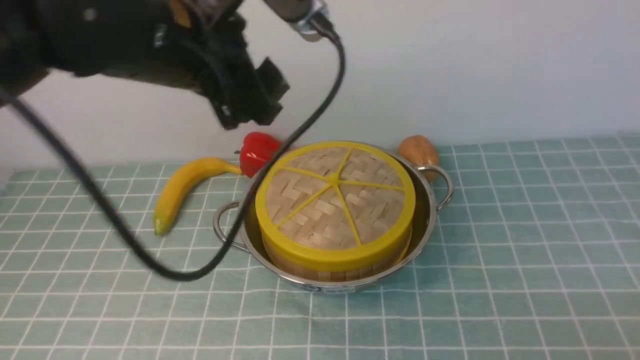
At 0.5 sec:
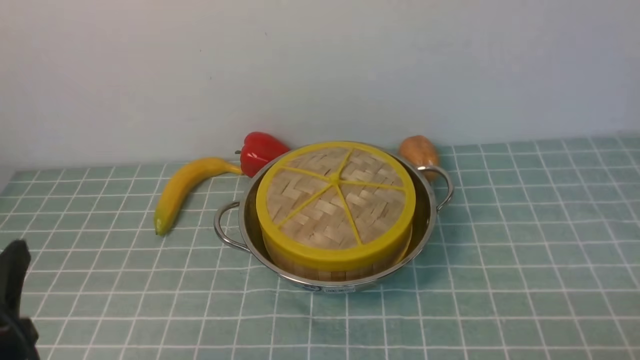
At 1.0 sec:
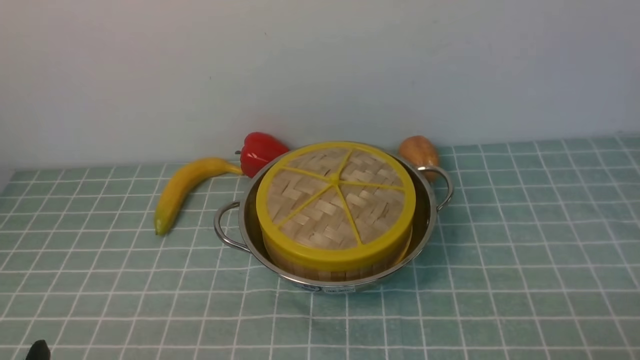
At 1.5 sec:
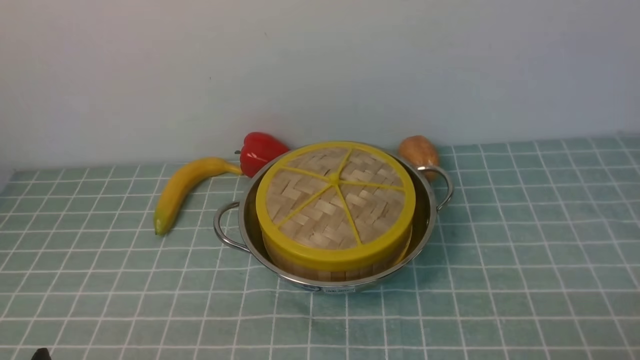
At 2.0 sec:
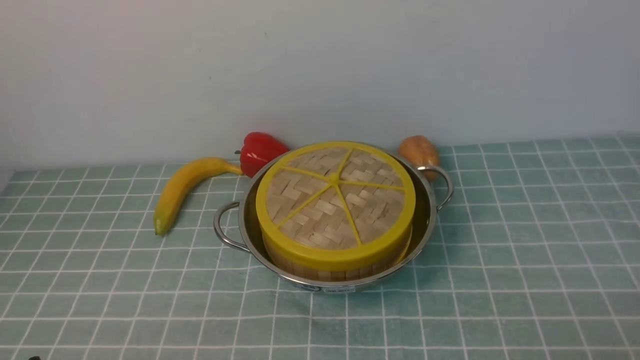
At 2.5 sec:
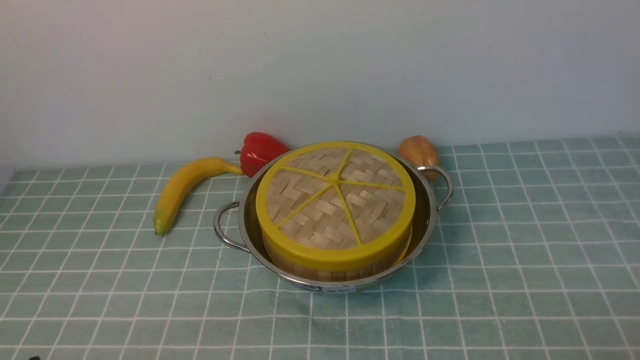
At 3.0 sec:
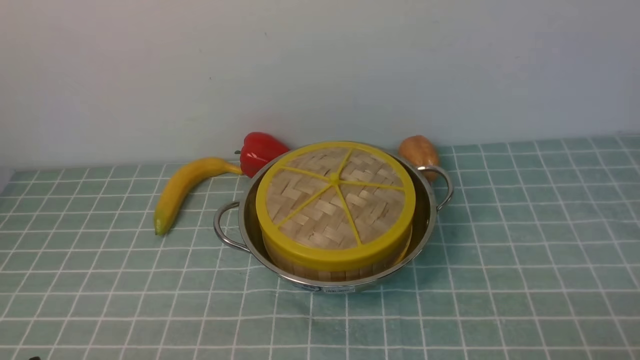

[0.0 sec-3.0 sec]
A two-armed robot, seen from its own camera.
Task of the whole recording: place the steamer in the pot on the blue tablecloth, and put the lid on the steamer.
0.0 sec to 1.5 sec: The left gripper moves backward, downward and to the left, approximately 35 cm.
1.5 sec to 3.0 sec: Neither gripper changes place.

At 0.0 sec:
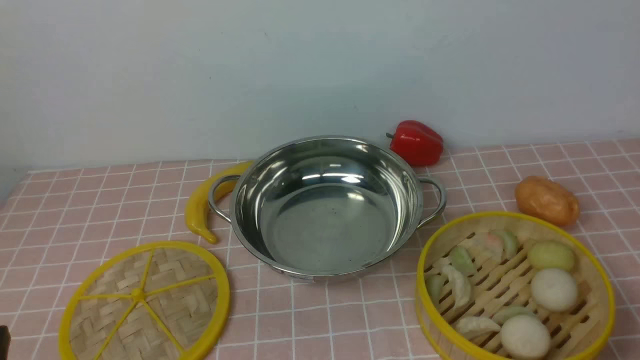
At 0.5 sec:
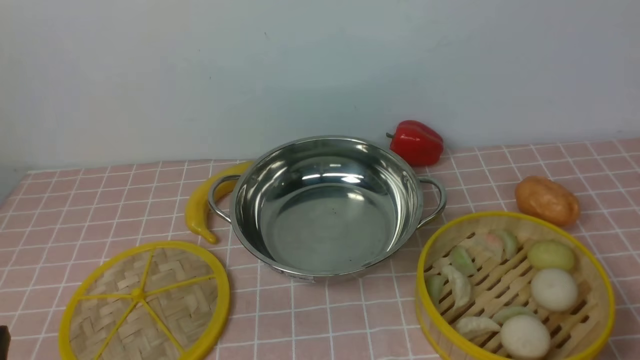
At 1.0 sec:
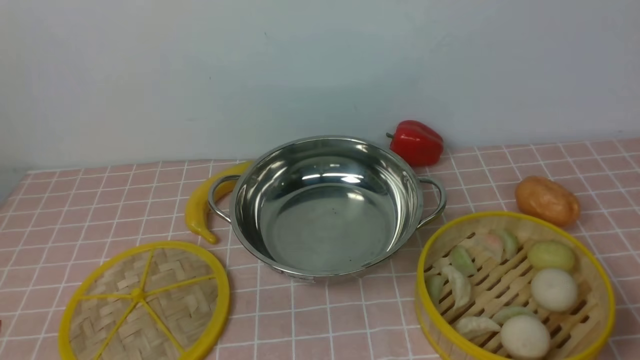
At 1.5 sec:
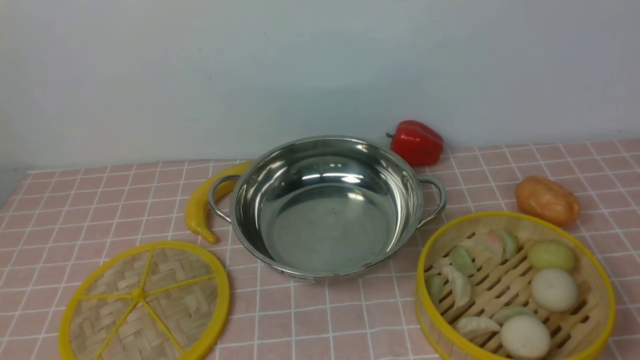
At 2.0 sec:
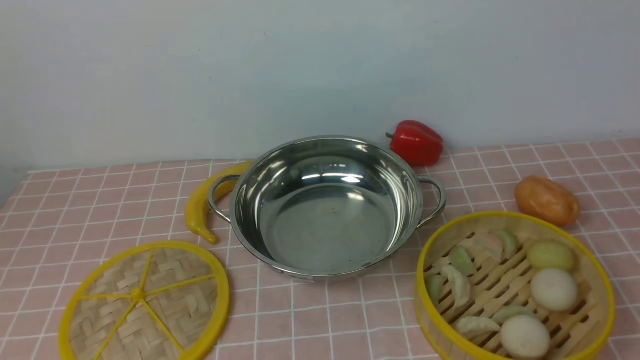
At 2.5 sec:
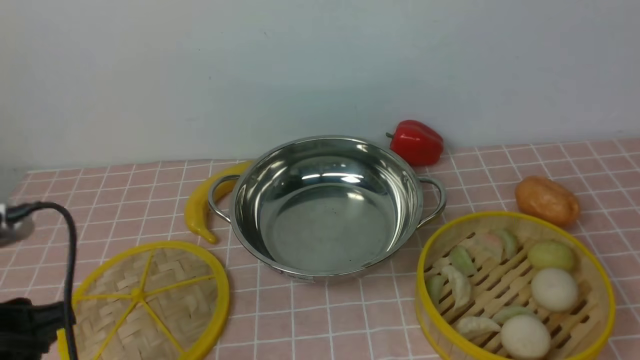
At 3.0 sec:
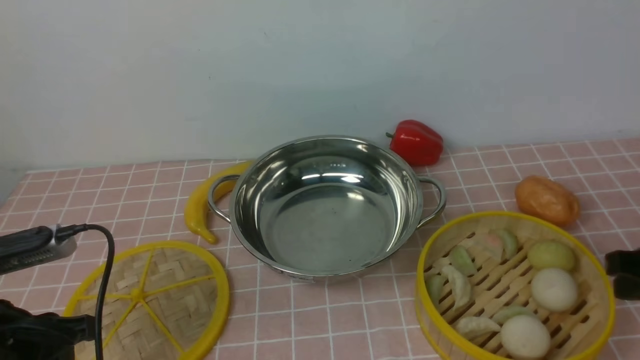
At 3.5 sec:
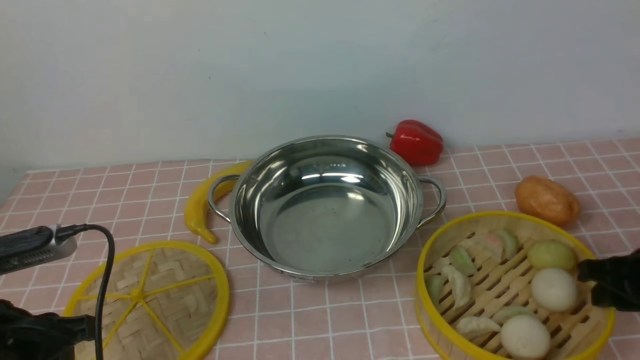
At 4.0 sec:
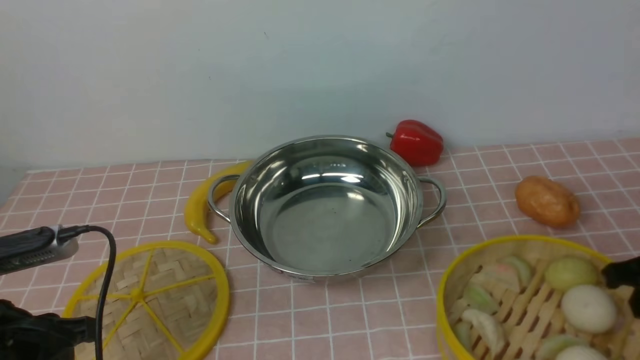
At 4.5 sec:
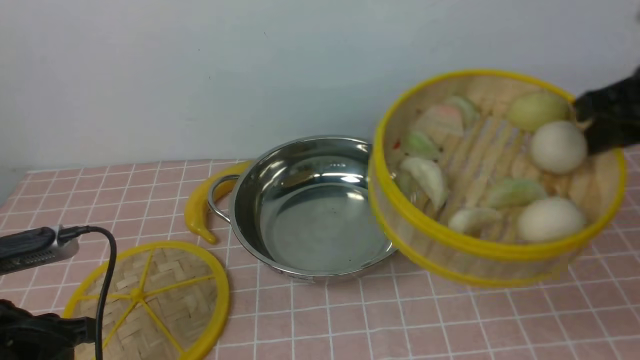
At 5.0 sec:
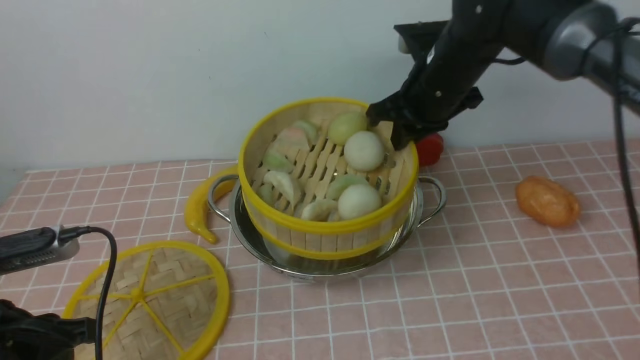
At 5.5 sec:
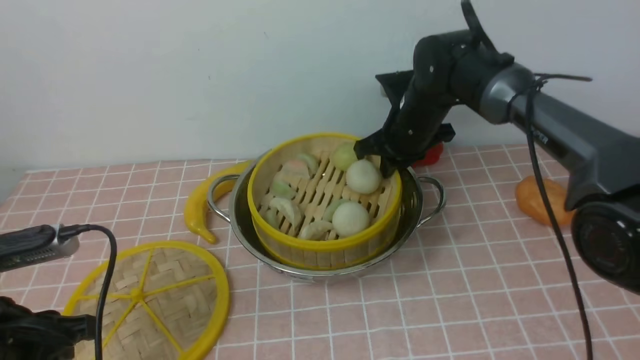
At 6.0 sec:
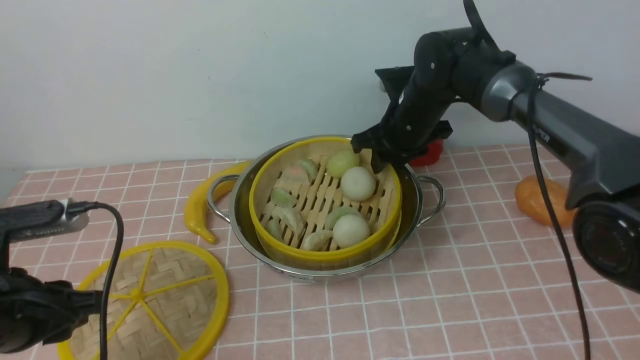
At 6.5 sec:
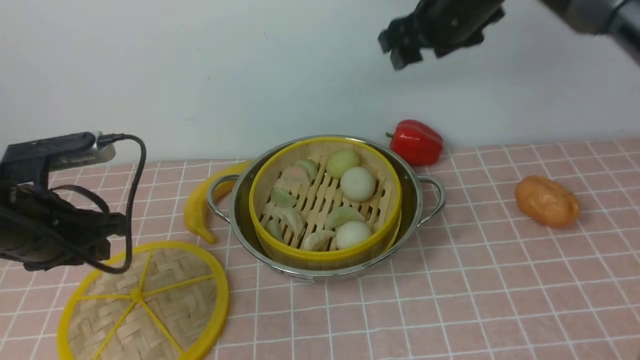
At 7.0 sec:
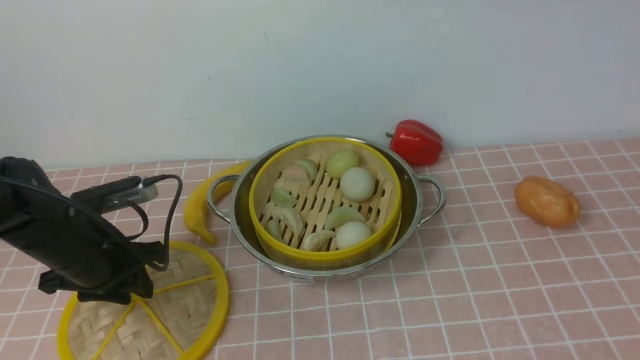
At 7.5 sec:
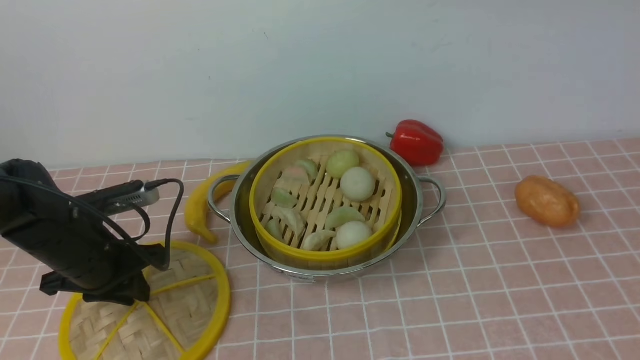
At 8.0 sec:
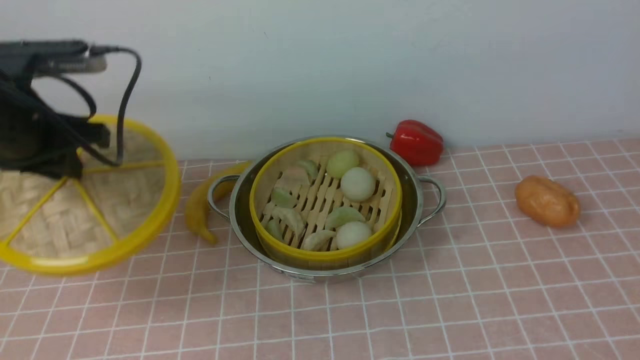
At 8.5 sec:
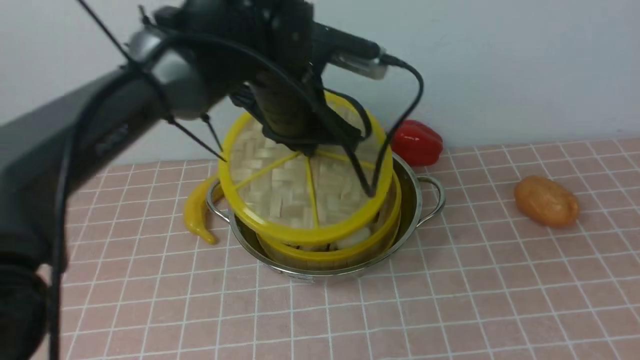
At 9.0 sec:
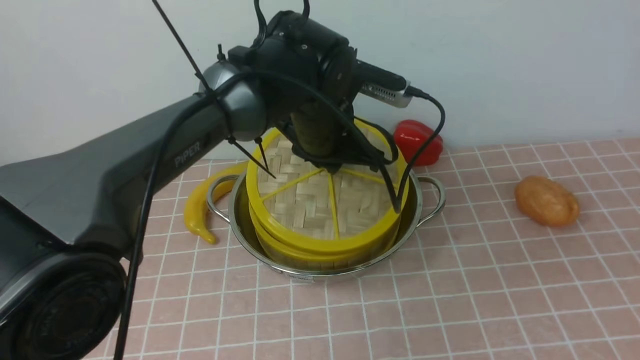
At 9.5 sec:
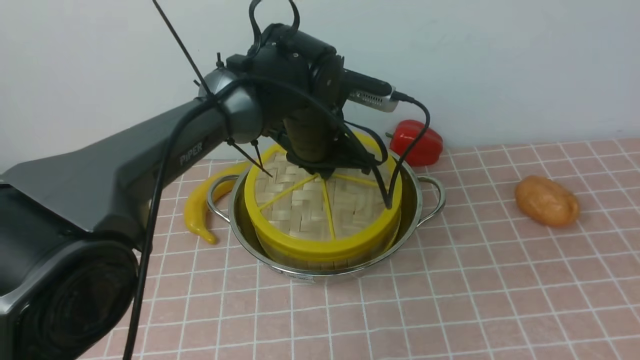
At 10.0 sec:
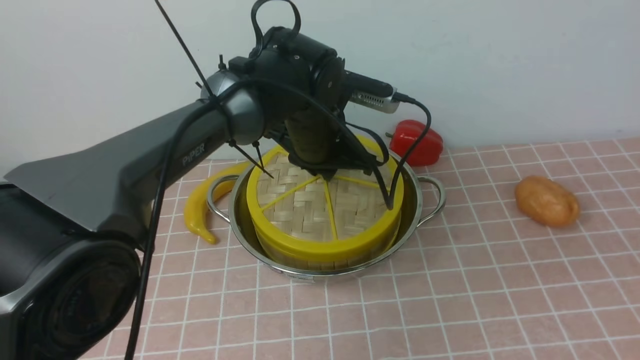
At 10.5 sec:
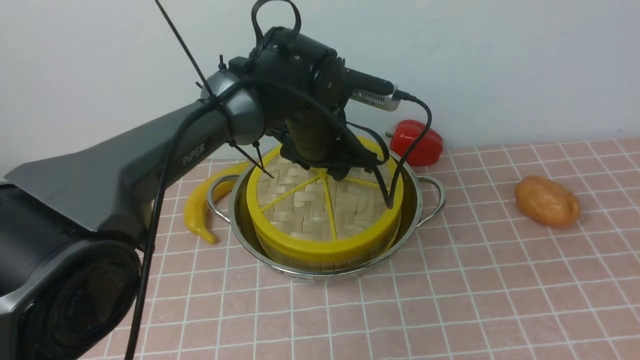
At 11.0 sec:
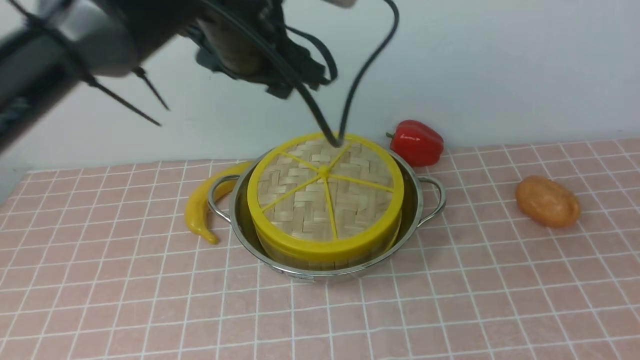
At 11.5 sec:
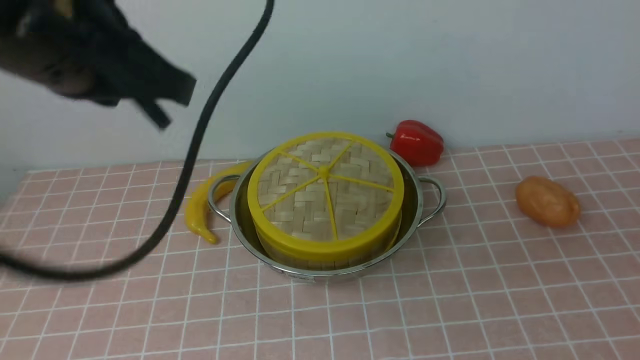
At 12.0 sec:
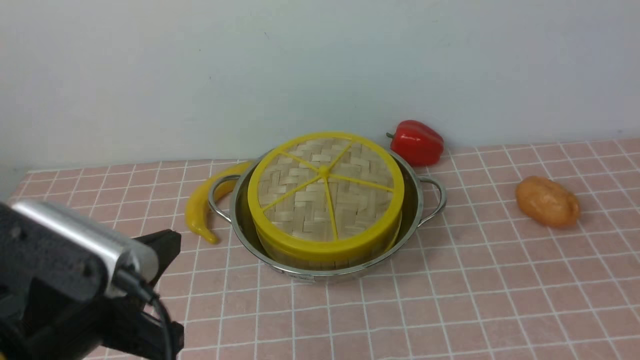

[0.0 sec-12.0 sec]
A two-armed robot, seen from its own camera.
Task of the whole recording: place the steamer in the pot on the pink tablecloth, and put the lid on the steamer.
Step, 0.0 sec to 3.5 sec: use the right arm to lift the steamer closest to it.
Step, 4.5 sec to 6.0 sec: use the right arm to put the steamer into the iron steamer pot in the middle.
Step, 6.5 sec to 7.5 sec: use the left arm to lift the lid of the steamer.
Step, 8.0 sec to 10.5 sec: use the left arm to place the steamer lid on the steamer.
2.0 sec to 4.0 sec: The right gripper travels forward and downward by some 25 cm; the left gripper goes about 20 cm forward and downward.
4.0 sec to 6.0 sec: The right gripper goes about 30 cm forward and to the left.
6.0 sec to 8.0 sec: The left gripper goes roughly 15 cm forward. Meanwhile the right gripper moves backward, upward and to the right, about 40 cm, and opens its fingers.
8.0 sec to 10.0 sec: The right gripper heads backward and downward, covering approximately 20 cm, while the left gripper goes approximately 25 cm to the right.
10.0 sec to 12.0 sec: The left gripper goes some 30 cm backward and to the left, and opens, then closes again; the right gripper goes some 5 cm downward, and closes.

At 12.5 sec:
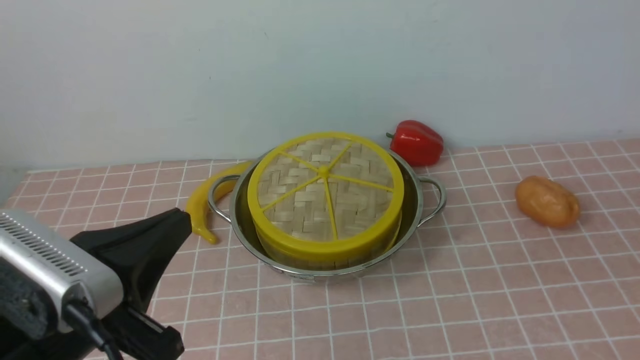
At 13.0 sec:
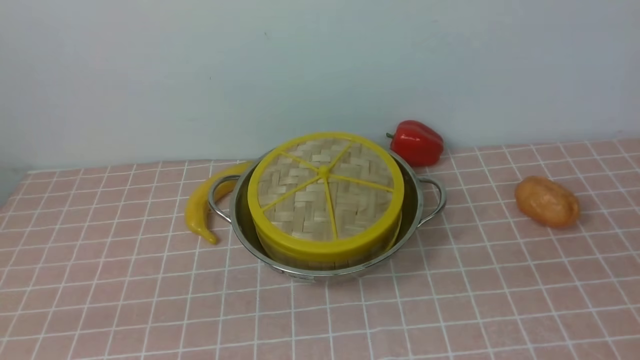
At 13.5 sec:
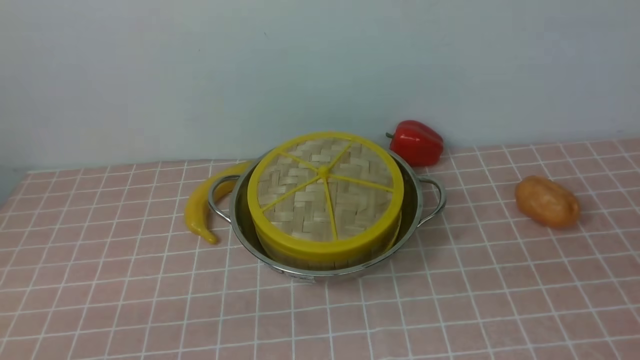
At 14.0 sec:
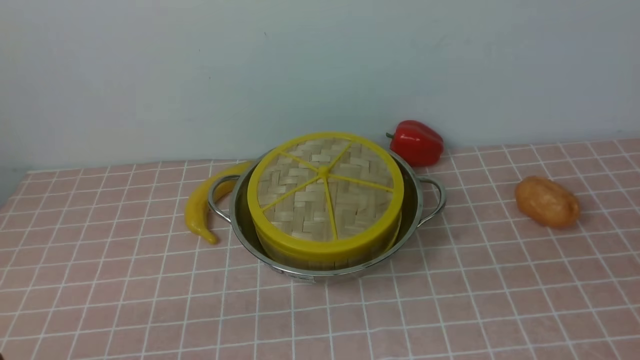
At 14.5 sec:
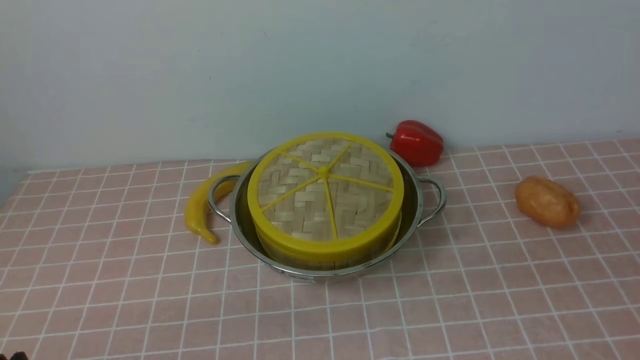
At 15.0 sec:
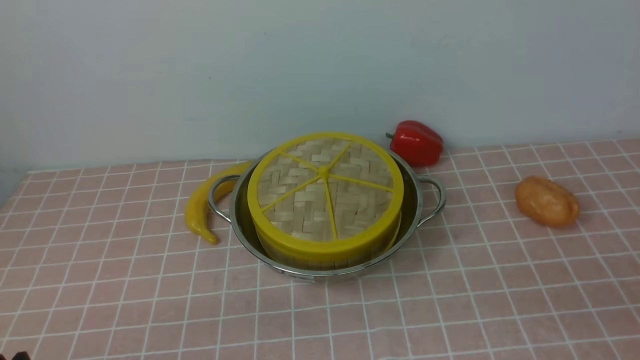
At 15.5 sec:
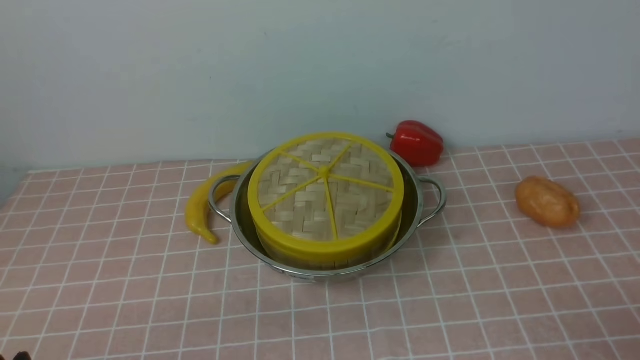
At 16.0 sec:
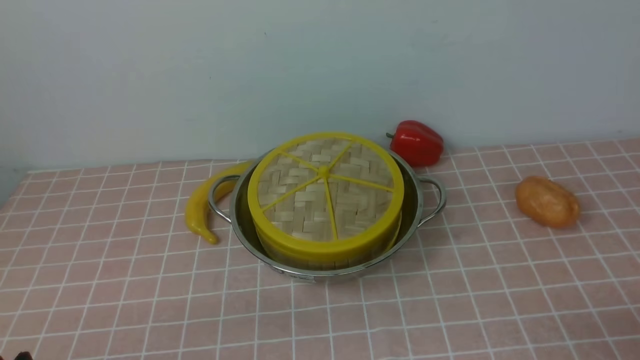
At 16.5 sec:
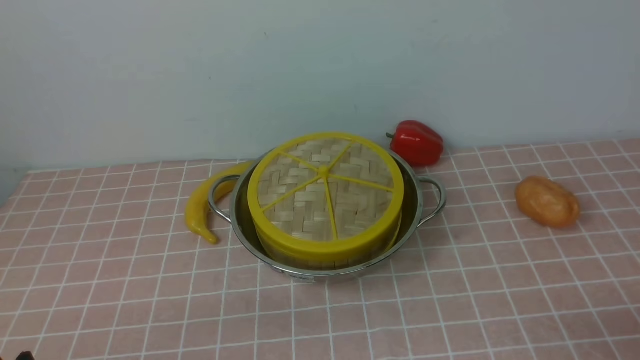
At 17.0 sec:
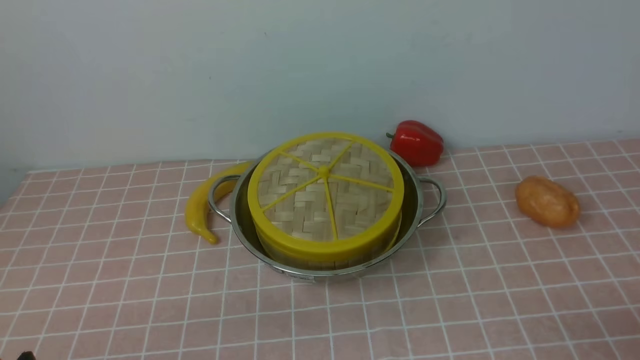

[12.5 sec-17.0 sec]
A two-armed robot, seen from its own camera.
Task of the whole recording: place the steamer in the pot on the pink tablecloth, and put the lid on the steamer.
12.5 sec to 14.5 sec: The left gripper heads downward, to the left and backward, covering about 15 cm.
